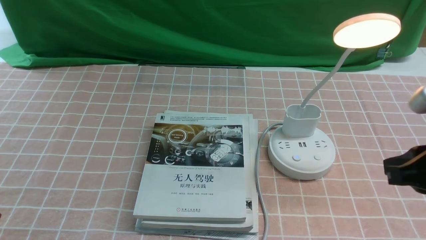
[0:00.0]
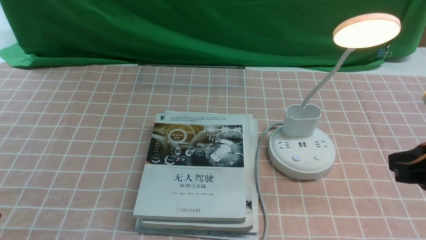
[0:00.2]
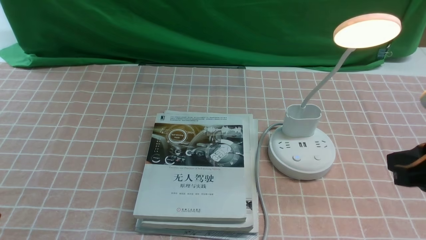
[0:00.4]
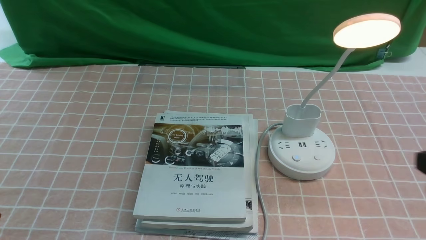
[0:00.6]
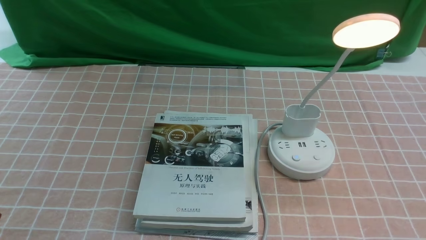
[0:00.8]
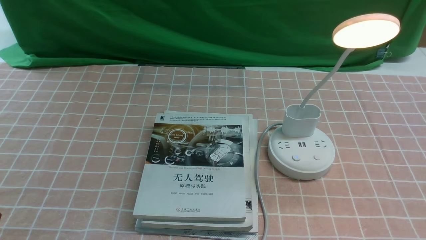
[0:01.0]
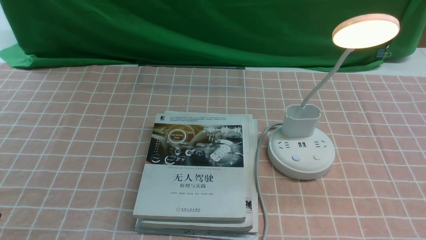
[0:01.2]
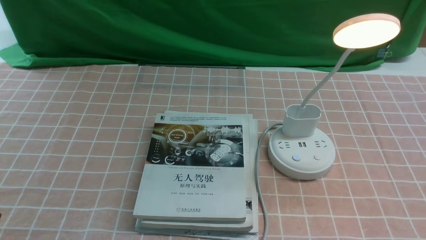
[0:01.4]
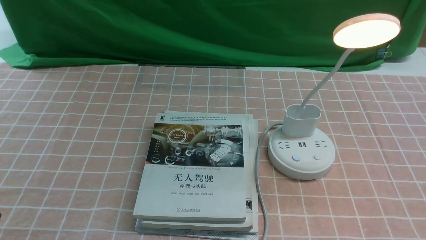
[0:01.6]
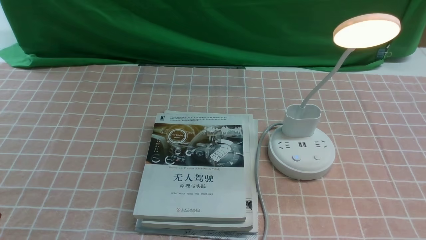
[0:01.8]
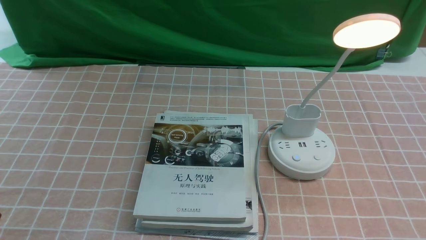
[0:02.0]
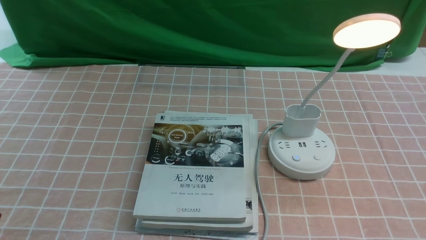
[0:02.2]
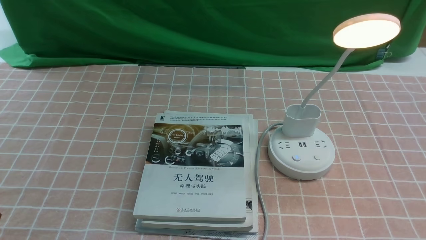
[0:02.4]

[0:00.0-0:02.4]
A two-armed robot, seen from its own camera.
0:00.0 to 0:01.2: The right gripper travels backward, downward and to the right by approximately 20 cm.
0:01.2 to 0:02.4: Neither gripper changes place.
